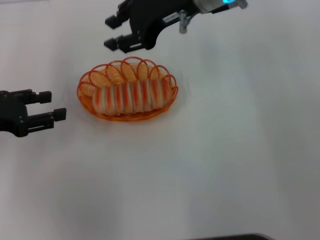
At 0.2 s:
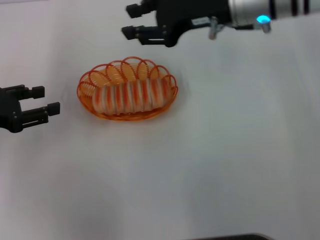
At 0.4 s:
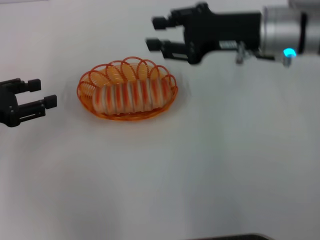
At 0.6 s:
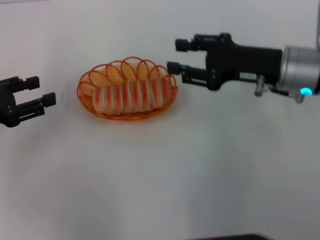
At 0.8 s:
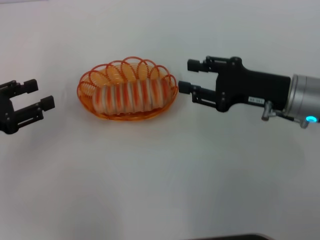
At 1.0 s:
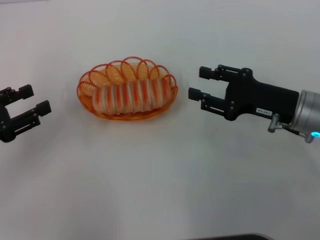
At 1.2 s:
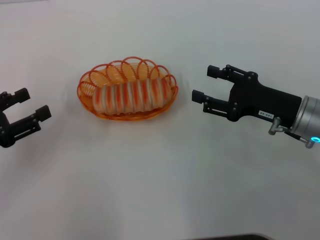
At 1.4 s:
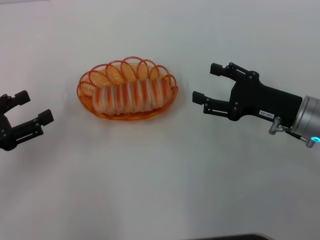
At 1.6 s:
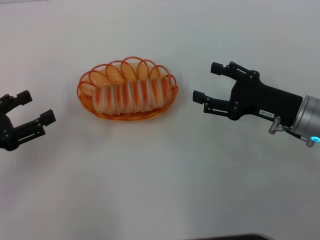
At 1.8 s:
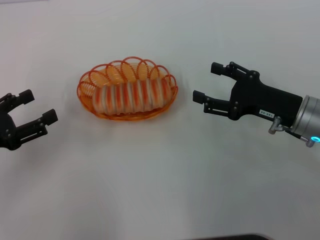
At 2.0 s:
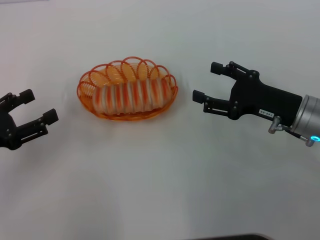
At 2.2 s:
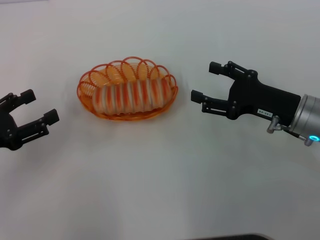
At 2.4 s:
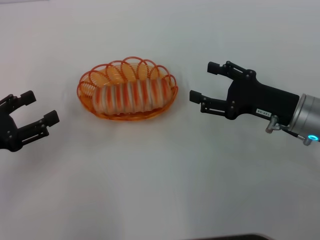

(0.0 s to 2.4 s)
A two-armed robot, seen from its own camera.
0.0 s - 1.2 s: The right gripper goes about 25 cm downward, to the right and backward. Meanwhile the left gripper goes some 5 cm backward.
1.2 s - 2.4 s: The right gripper opens up.
